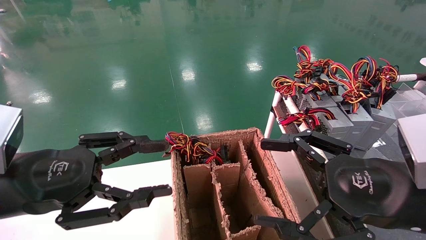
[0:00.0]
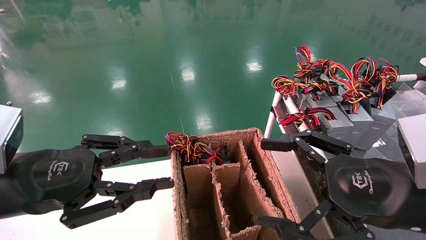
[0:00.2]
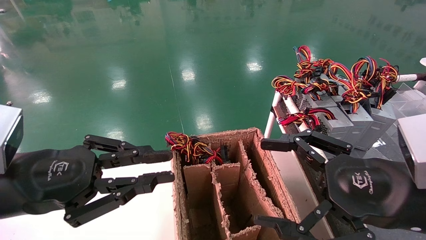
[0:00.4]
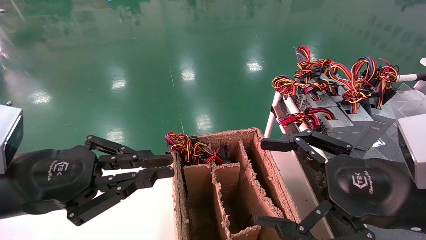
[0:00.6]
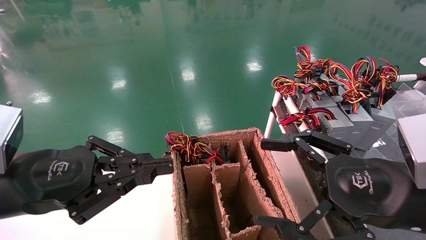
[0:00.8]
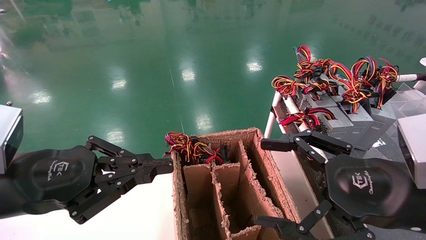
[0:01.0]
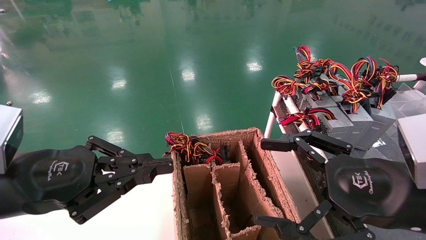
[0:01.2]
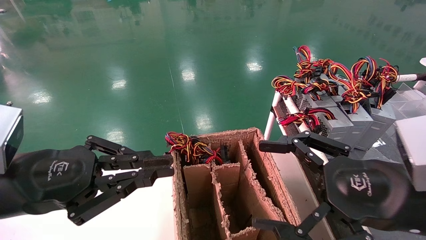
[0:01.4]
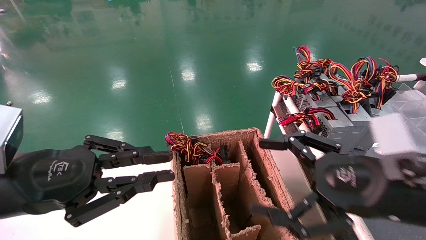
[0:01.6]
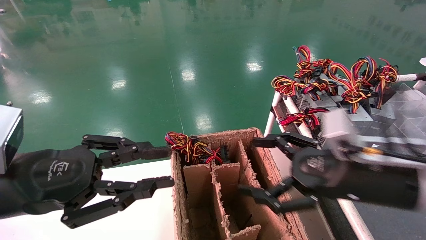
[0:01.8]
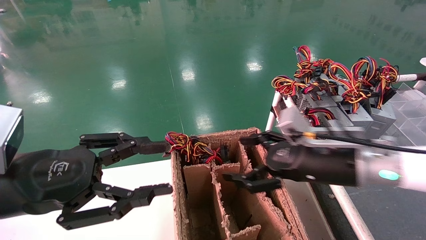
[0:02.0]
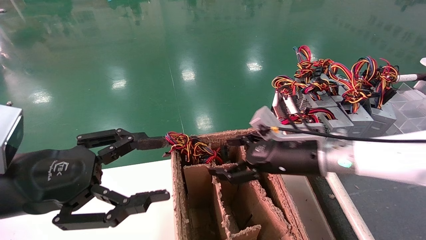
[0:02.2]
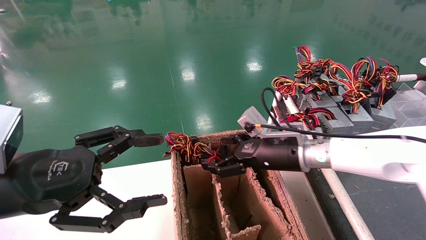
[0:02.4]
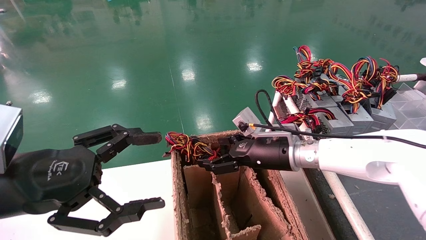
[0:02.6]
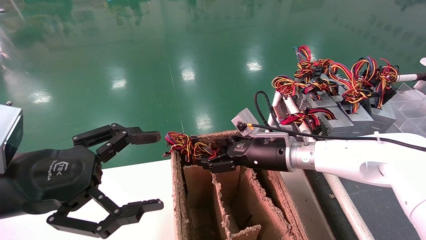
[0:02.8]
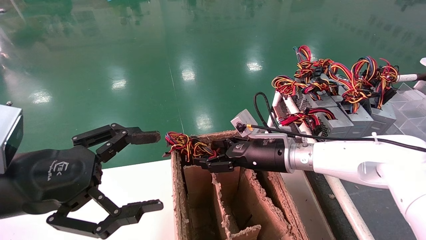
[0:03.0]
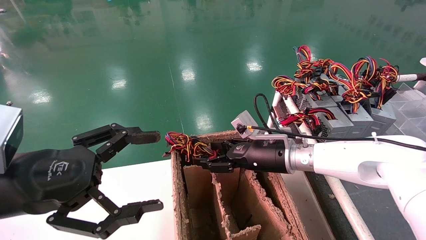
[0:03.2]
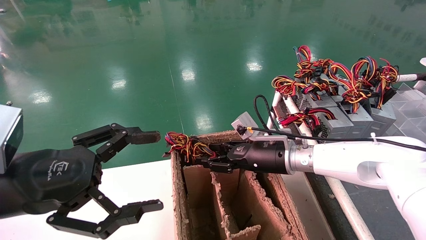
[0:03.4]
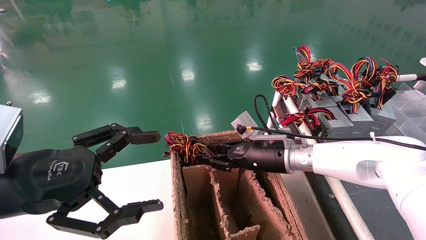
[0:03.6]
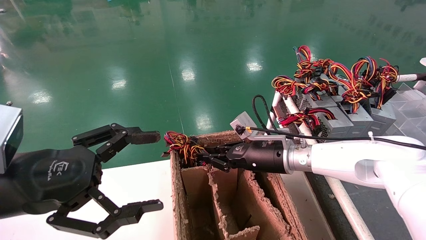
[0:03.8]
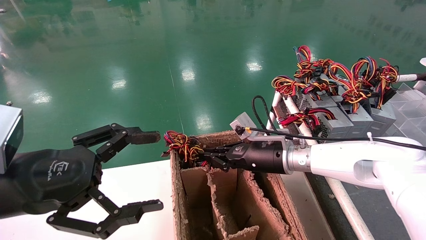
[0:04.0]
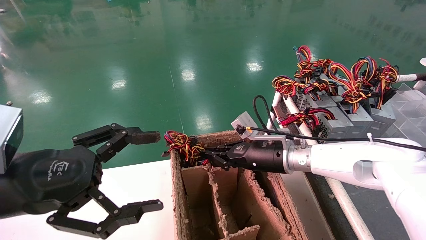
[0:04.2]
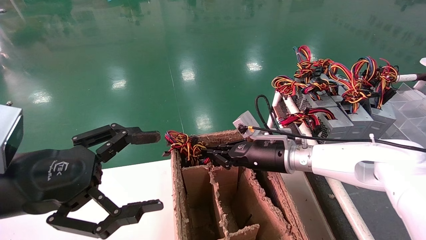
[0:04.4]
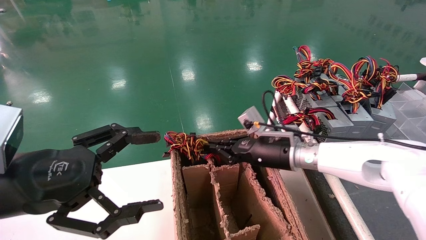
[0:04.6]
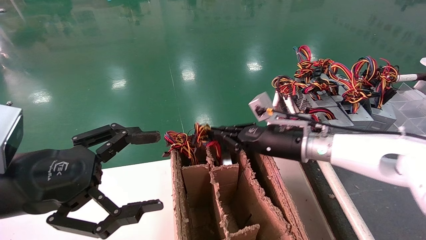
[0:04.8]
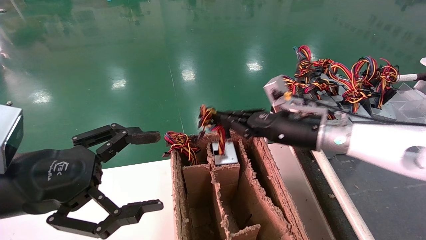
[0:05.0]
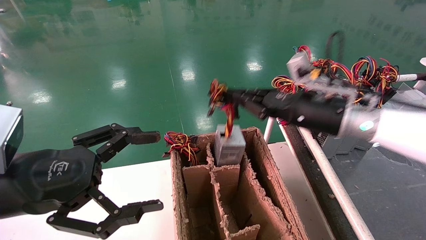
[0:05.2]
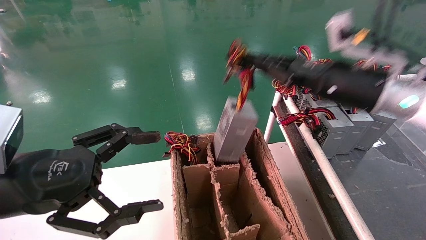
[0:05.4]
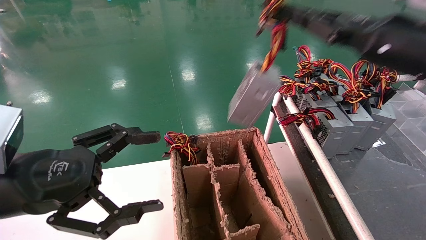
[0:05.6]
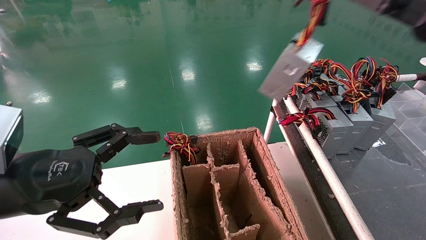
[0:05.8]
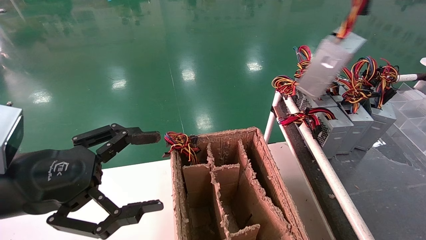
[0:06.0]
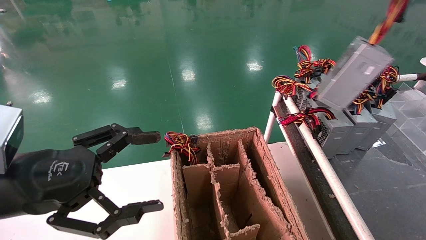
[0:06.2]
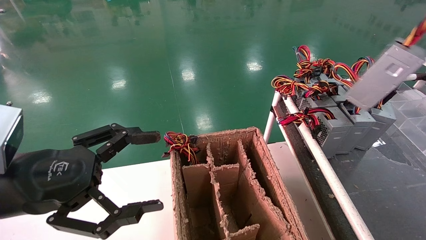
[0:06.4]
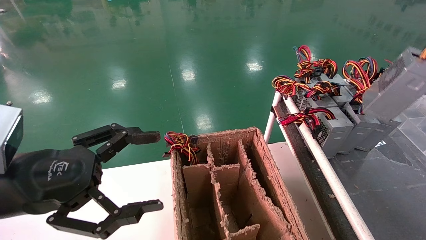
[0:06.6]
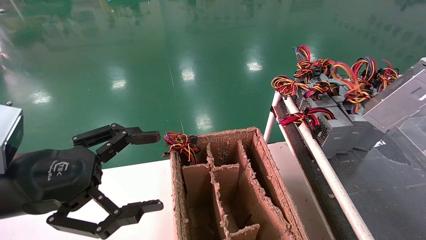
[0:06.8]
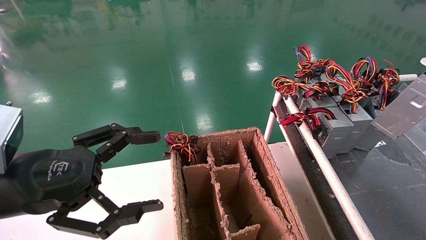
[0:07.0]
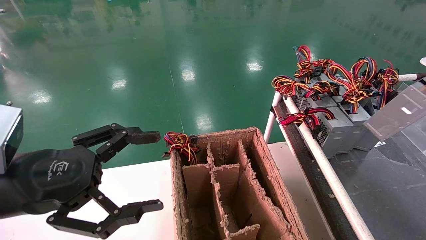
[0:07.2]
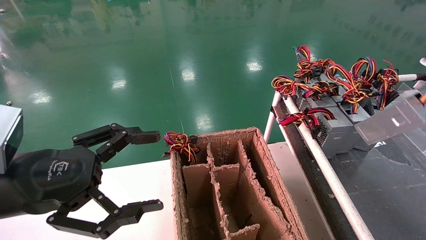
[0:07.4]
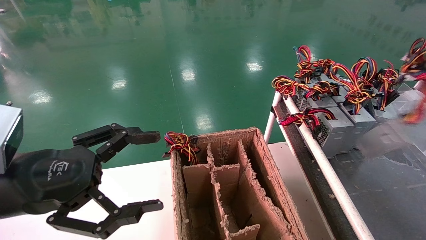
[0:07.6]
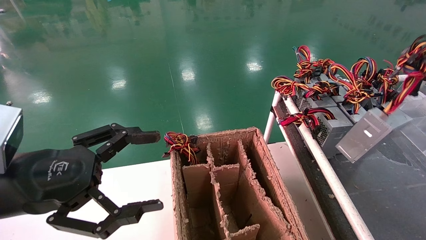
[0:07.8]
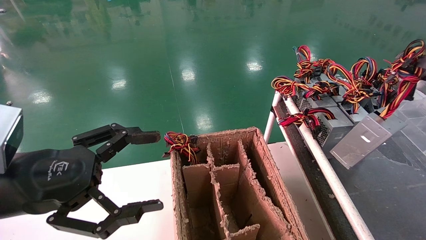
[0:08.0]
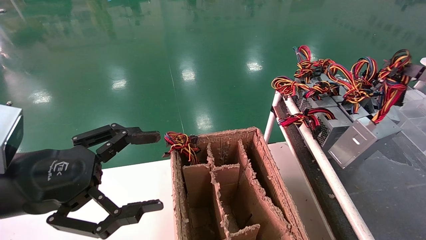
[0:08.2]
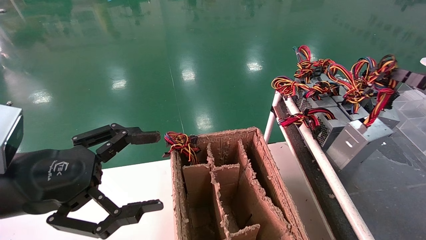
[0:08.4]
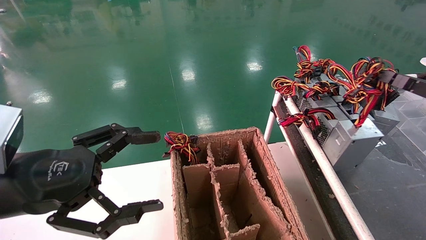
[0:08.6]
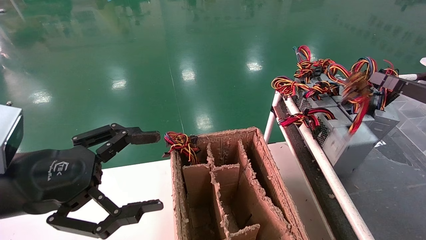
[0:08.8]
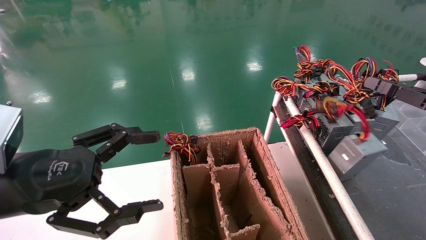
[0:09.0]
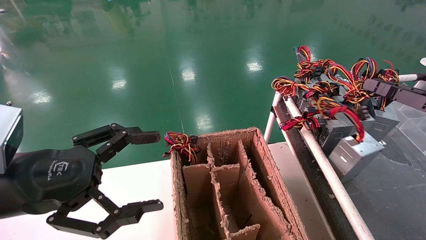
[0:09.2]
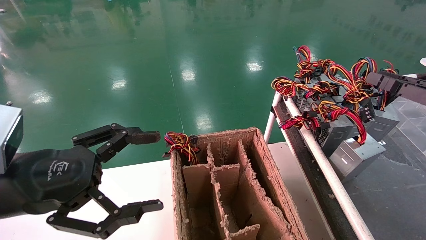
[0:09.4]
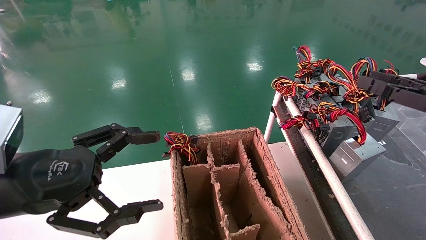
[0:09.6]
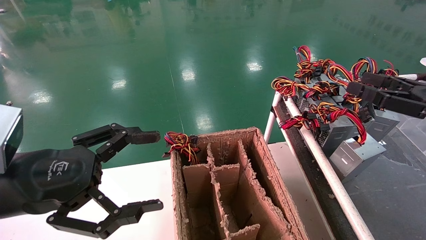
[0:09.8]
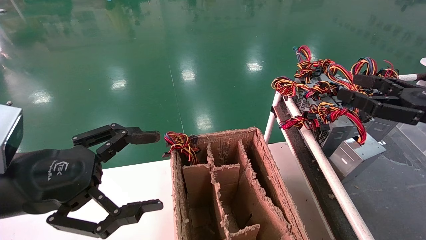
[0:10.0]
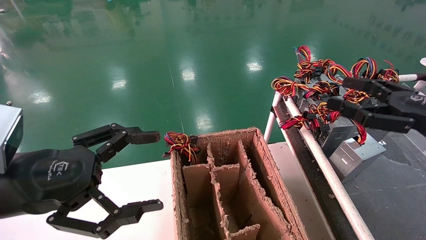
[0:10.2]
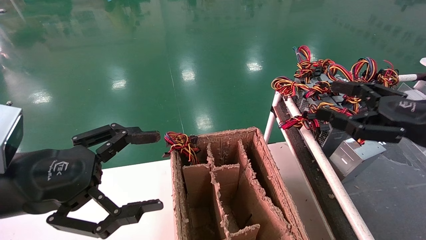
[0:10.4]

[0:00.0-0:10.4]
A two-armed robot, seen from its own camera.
Step, 0:01.0 to 0:04.2: Grab and lift the power supply from the large box.
Step, 0:04.4 to 0:09.0: Place the power supply on the operating table.
0:00.0 to 0:01.4: The left gripper closes.
0:01.4 to 0:03.0: The right gripper heads forward and to the left, covering roughly 25 cm. The left gripper opens up.
0:03.0 to 0:04.4: The right gripper closes.
0:04.4 to 0:06.0: The right gripper is displaced to the right, upward and backward by about 40 cm.
0:06.0 to 0:07.4: The right gripper heads to the right, downward and backward, covering approximately 15 cm.
0:07.4 to 0:09.0: The right gripper heads to the left and forward, covering roughly 10 cm.
0:09.0 to 0:10.4: The right gripper is displaced to the left by about 10 cm, and opens its fingers.

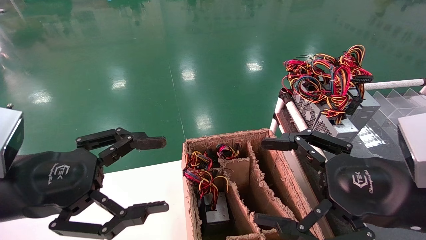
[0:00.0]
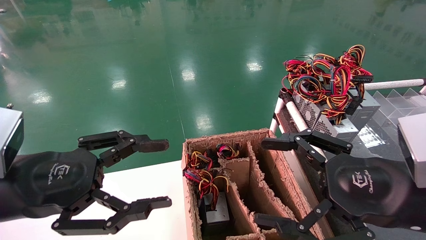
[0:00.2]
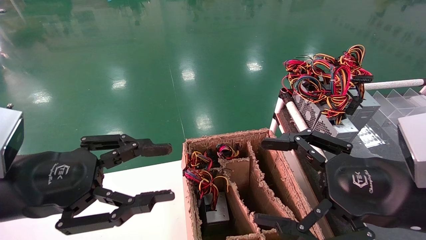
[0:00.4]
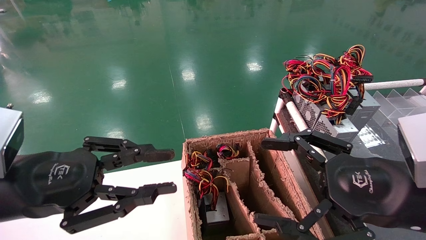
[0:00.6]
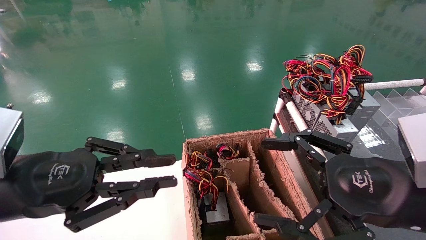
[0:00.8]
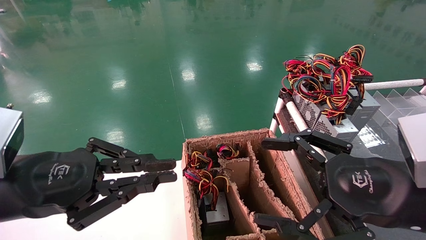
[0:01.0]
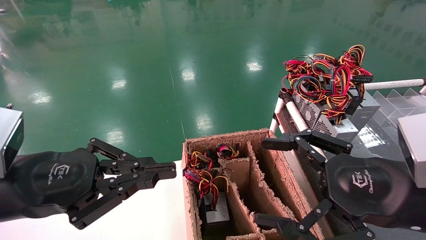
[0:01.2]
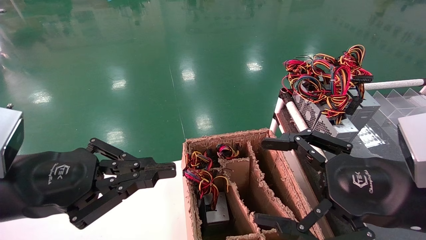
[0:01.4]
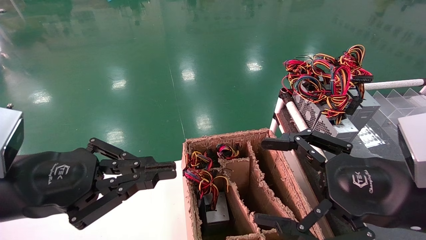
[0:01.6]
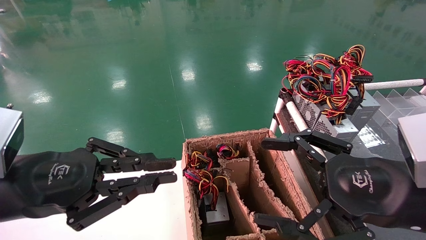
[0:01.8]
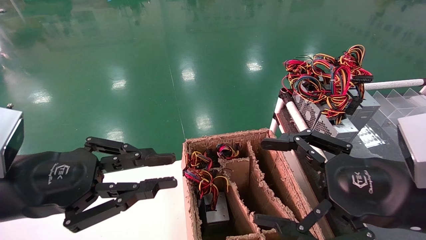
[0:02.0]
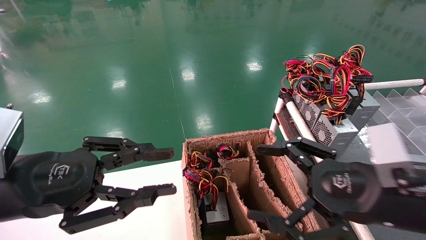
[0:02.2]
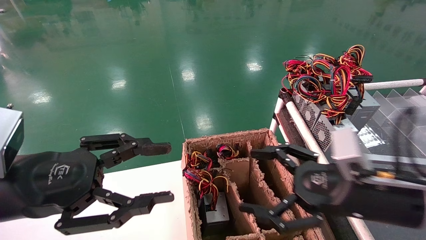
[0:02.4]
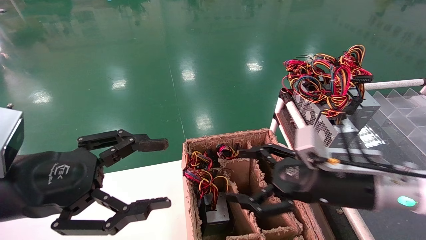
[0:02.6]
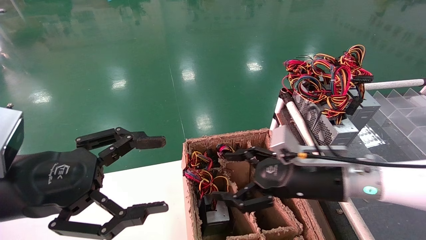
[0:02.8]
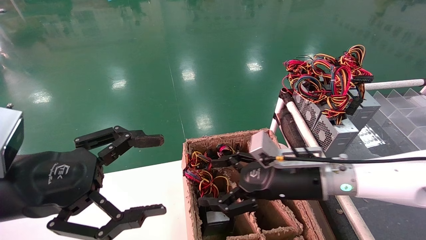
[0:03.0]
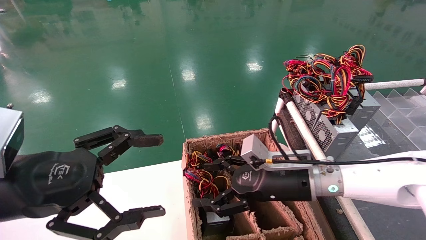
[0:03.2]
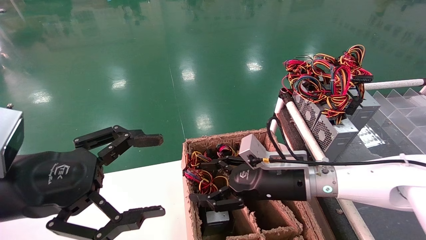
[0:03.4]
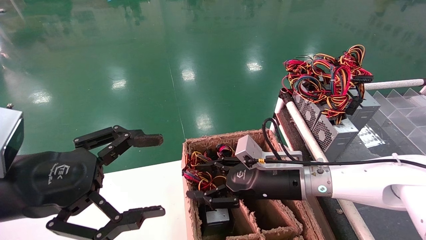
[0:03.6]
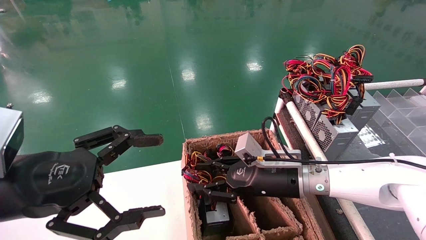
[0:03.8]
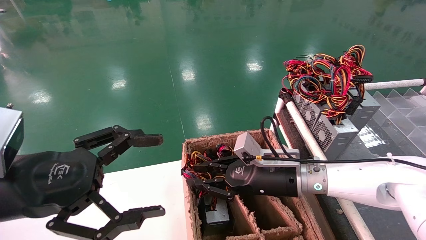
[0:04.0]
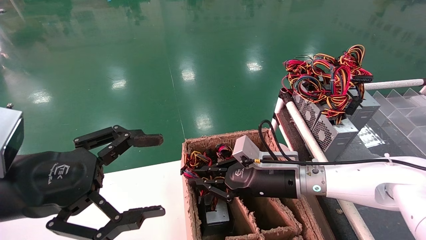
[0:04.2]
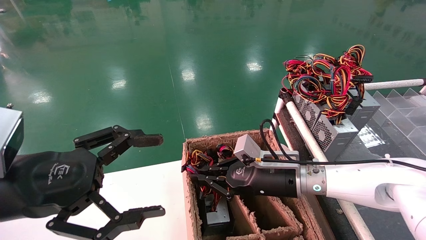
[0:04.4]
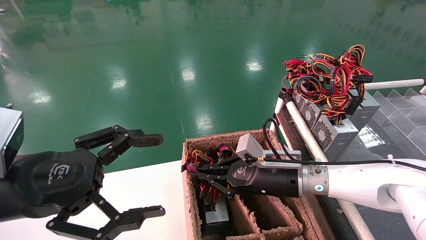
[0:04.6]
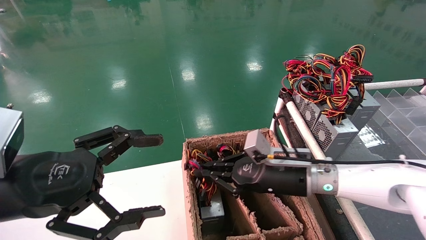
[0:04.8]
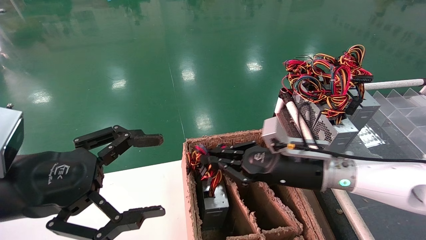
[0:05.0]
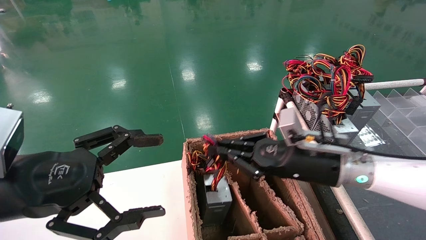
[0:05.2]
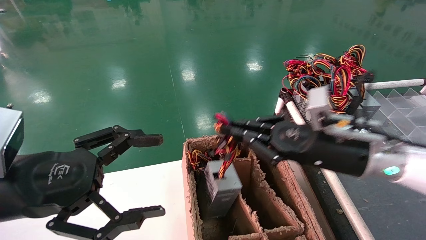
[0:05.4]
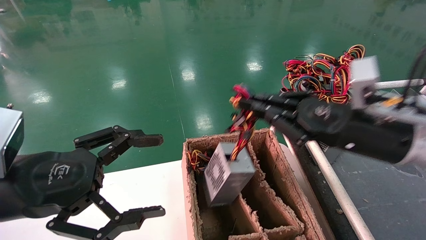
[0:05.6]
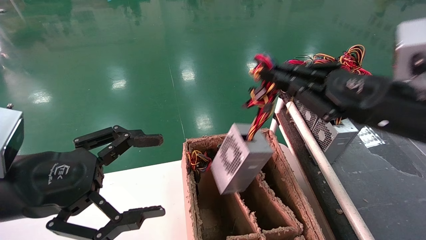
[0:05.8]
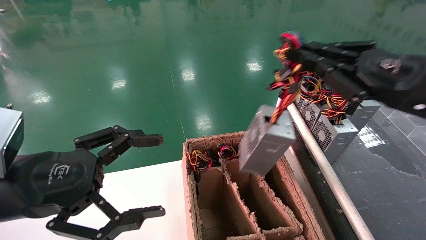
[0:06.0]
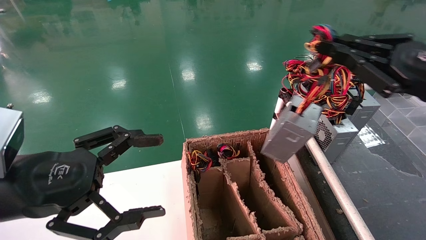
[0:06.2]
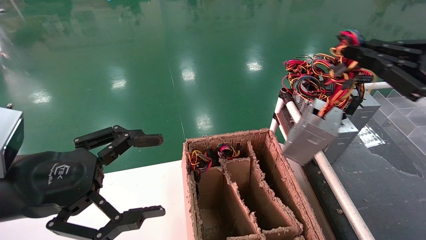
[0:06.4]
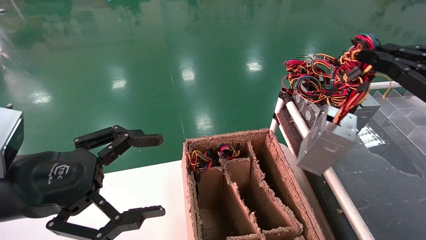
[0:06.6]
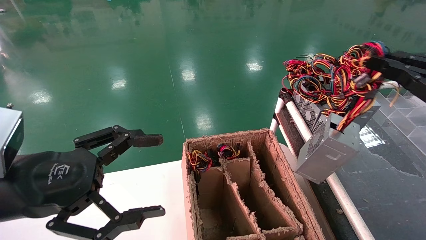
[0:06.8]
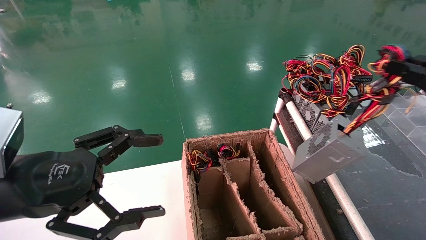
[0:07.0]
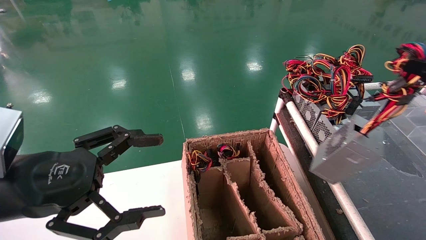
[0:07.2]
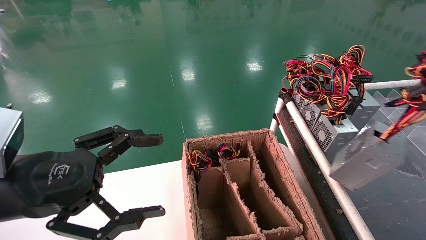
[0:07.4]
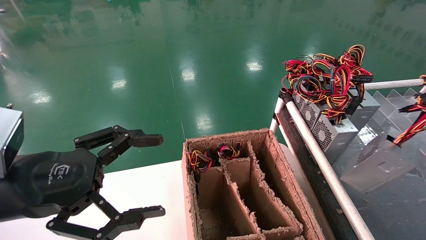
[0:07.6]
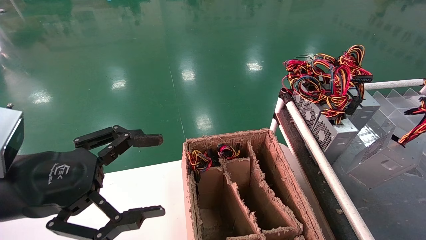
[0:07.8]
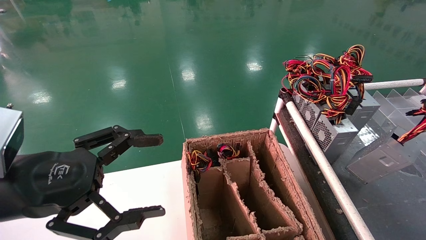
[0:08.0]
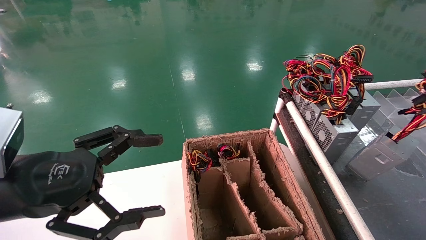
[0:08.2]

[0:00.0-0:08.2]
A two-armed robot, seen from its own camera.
Step, 0:01.4 to 0:04.4: Grab and lift the power supply from the large box.
0:00.0 to 0:01.6: The left gripper closes up.
0:01.6 to 0:03.2: The left gripper opens its fingers, while the right gripper goes roughly 20 cm forward, to the left and downward.
0:03.2 to 0:05.0: The right gripper closes up.
0:05.0 to 0:06.6: The right gripper heads to the right, upward and backward, covering approximately 30 cm.
0:06.6 to 0:08.2: The right gripper moves to the right, some 10 cm.
